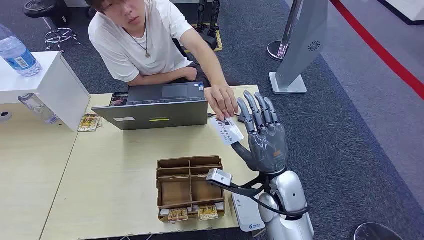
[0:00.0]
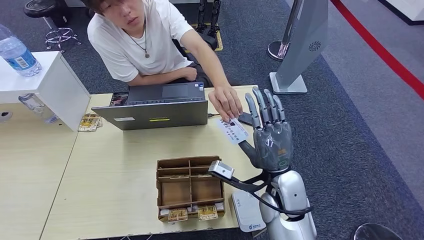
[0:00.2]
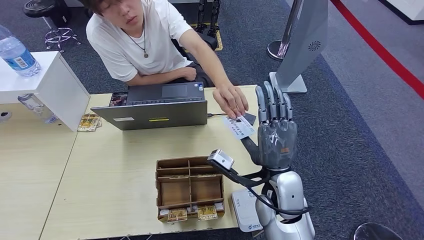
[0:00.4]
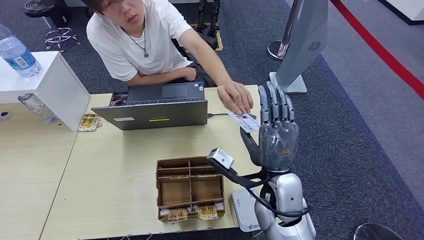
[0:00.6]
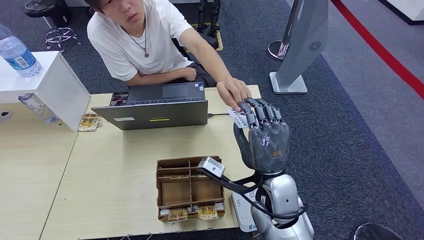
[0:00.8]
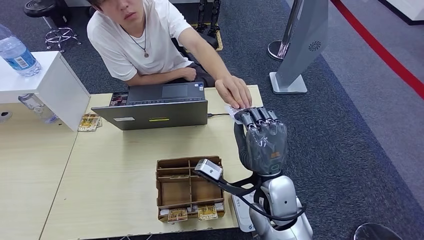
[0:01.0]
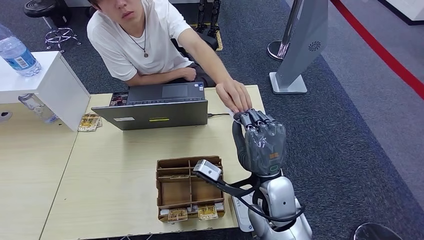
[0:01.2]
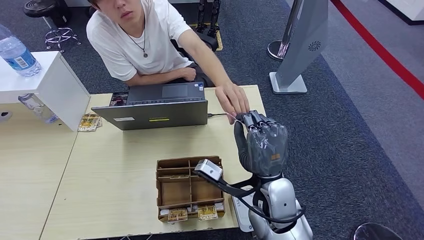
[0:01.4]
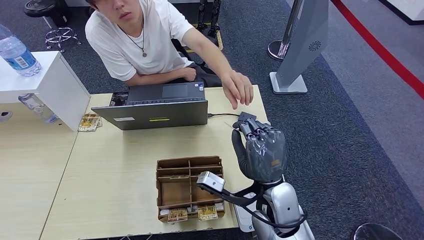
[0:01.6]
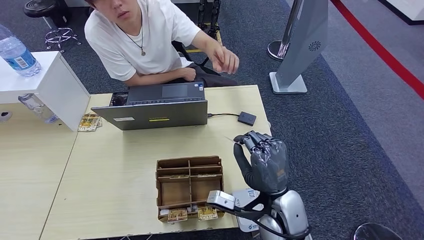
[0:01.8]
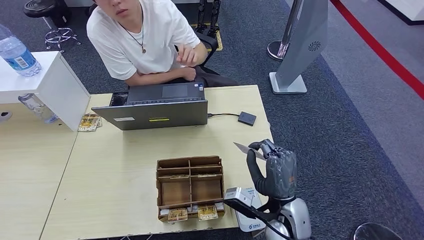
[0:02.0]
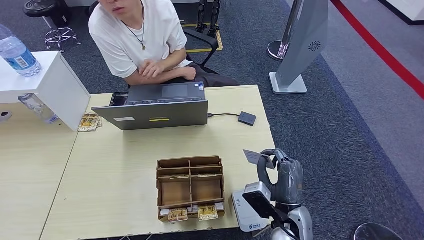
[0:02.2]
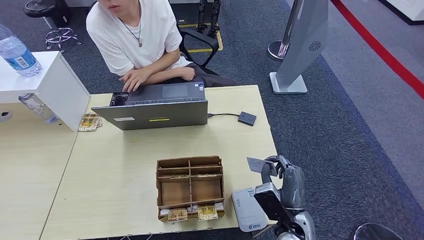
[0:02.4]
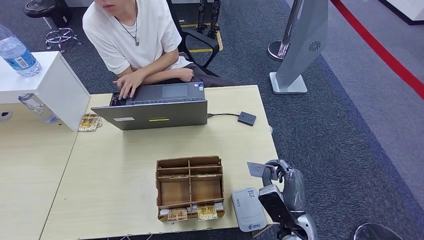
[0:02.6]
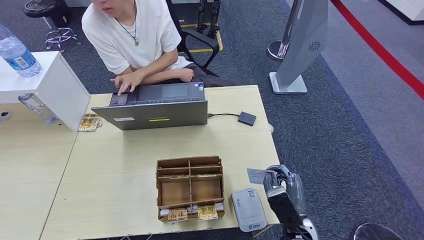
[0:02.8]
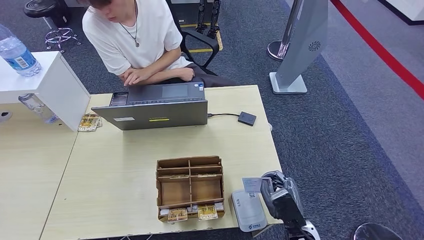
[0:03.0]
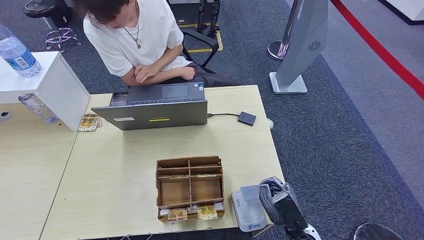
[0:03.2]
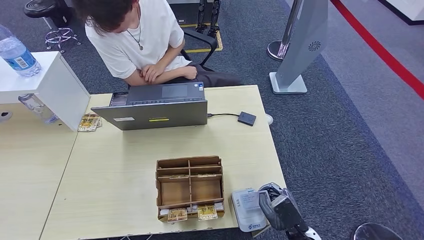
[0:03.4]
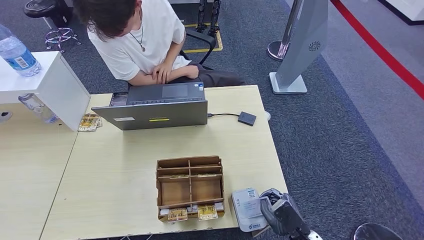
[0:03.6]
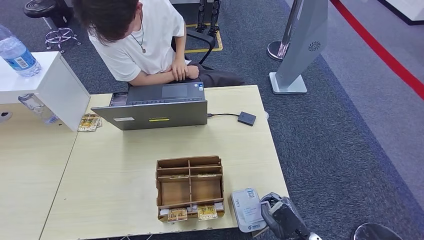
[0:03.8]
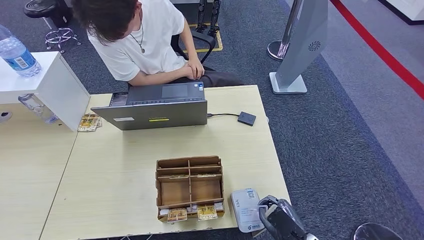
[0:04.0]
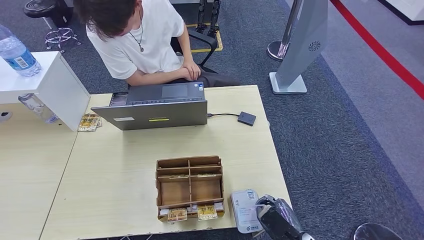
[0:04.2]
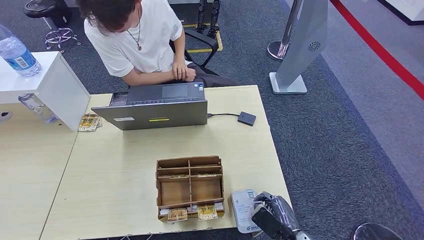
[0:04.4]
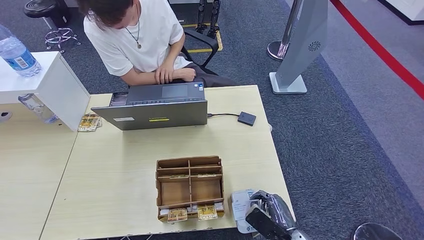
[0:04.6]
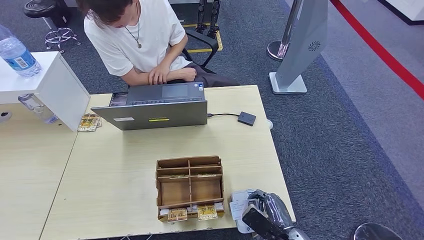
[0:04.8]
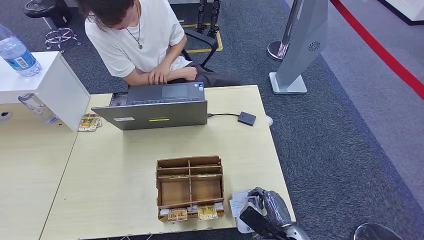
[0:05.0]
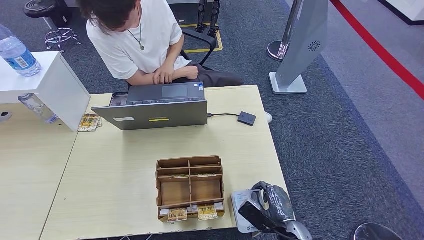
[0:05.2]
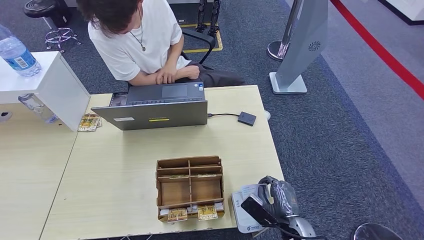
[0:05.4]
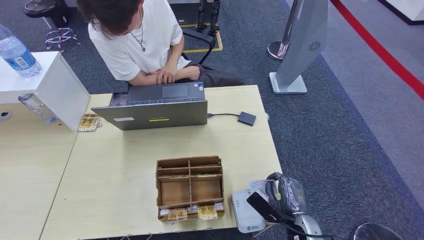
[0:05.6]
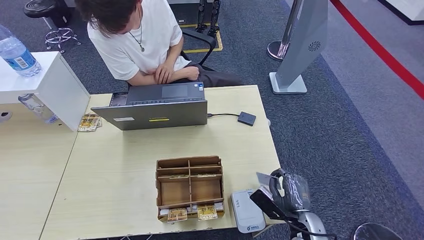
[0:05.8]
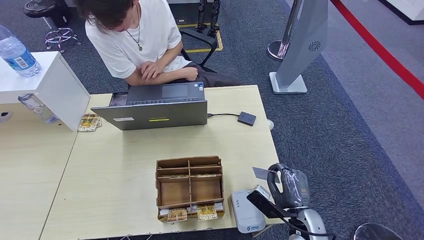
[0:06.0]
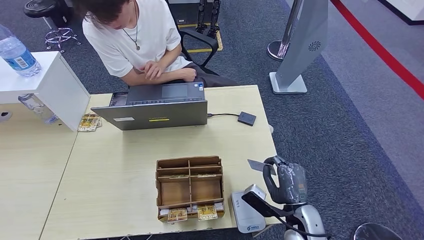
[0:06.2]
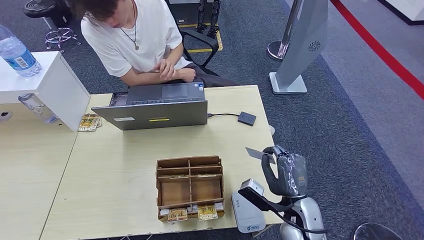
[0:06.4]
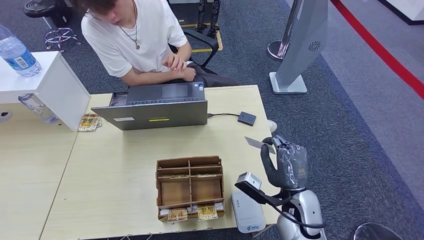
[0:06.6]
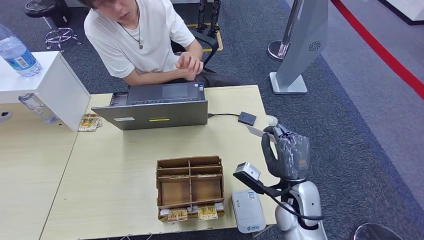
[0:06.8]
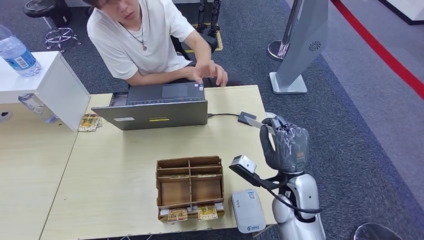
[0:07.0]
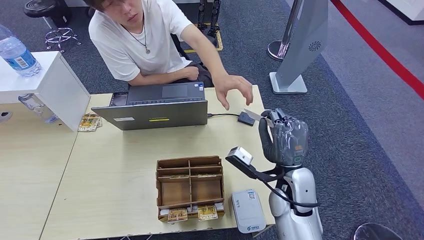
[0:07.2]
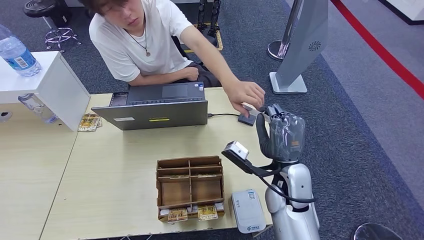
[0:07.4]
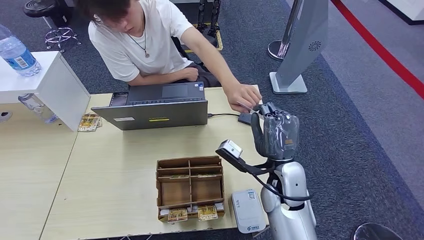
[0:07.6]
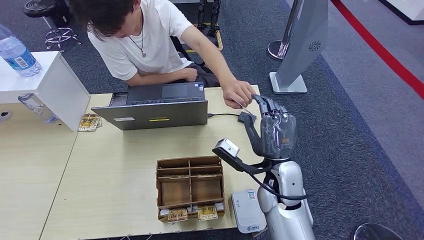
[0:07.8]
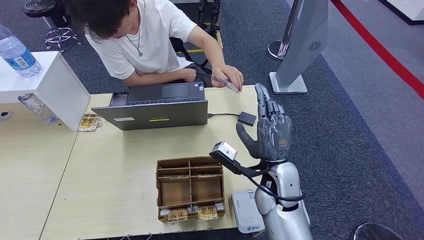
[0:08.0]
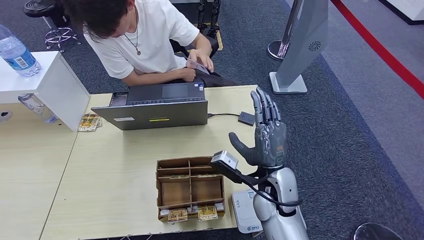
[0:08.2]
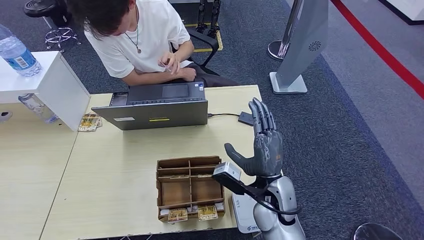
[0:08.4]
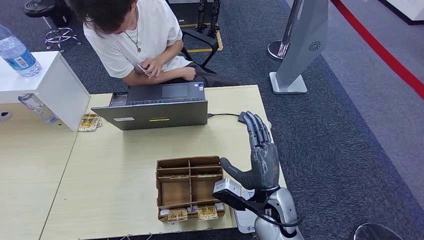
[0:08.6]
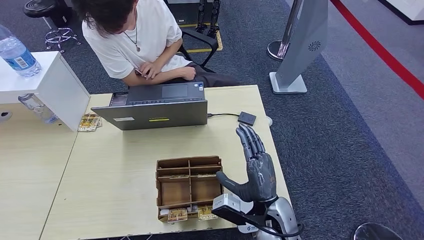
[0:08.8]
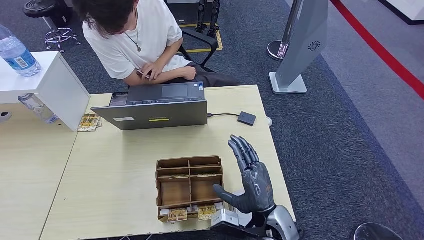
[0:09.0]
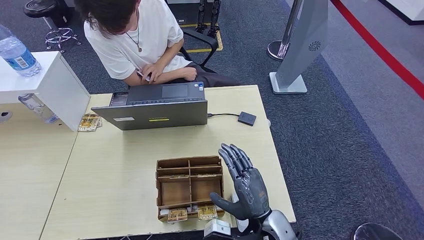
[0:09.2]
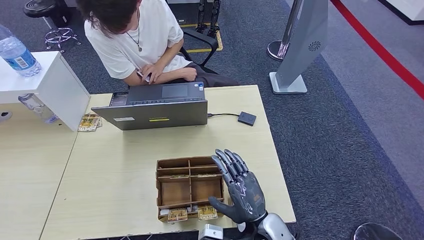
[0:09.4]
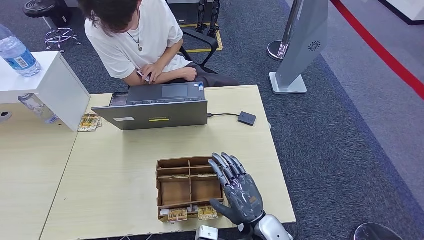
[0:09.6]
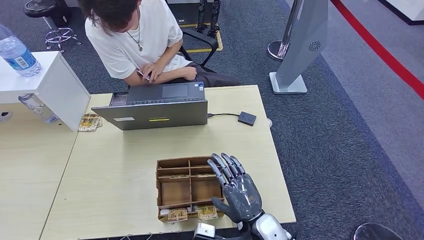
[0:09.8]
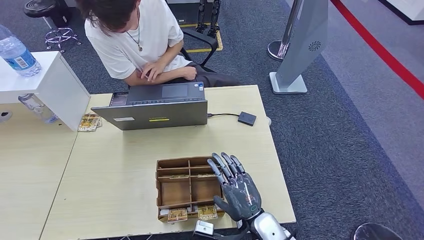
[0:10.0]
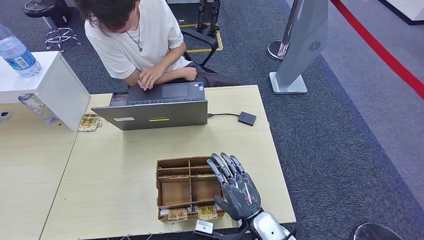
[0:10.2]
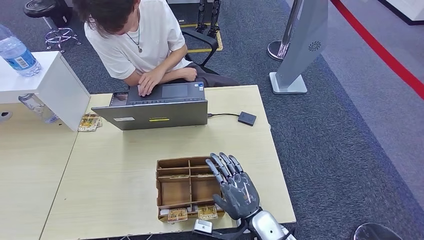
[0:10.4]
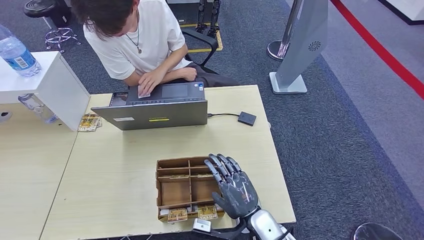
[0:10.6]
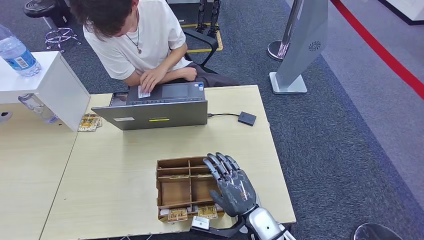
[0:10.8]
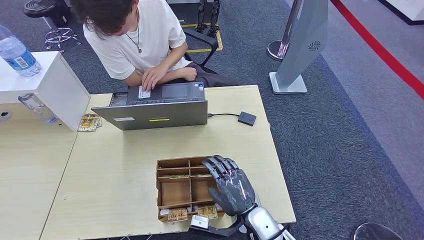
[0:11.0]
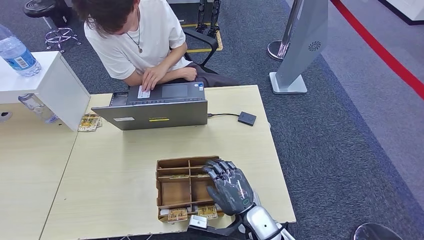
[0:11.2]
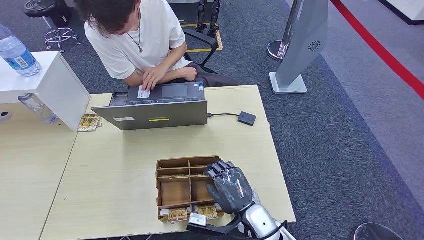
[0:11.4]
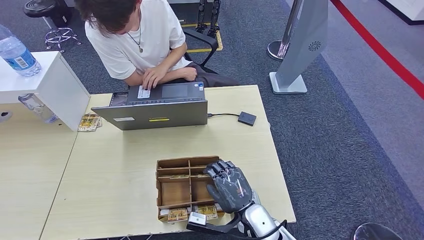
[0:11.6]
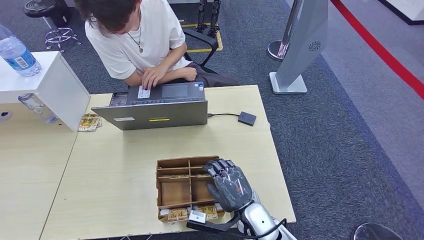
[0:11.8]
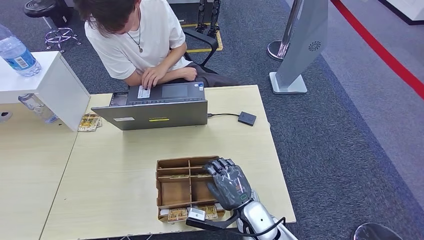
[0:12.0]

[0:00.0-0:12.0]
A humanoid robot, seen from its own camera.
Step, 0:00.0 to 0:02.8: Take the ID card from the person's hand.
Step, 0:03.0 to 0:06.4: Place the ID card on the card reader.
Step, 0:06.6 to 0:10.6: Hand the ID card to the person.
0:01.6 to 0:03.0: The right hand moves downward, to the right and backward, approximately 20 cm.
0:04.4 to 0:06.0: The right hand shifts about 5 cm forward.
0:06.0 to 0:07.6: The right hand is displaced upward, forward and to the left by approximately 20 cm.
0:07.6 to 0:09.0: The right hand heads backward and downward, covering some 10 cm.
0:10.4 to 0:12.0: There are only small adjustments of the hands.

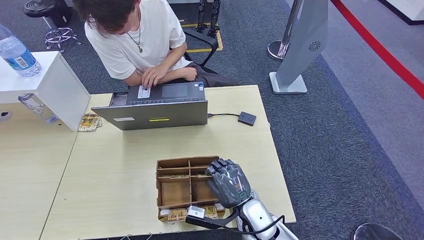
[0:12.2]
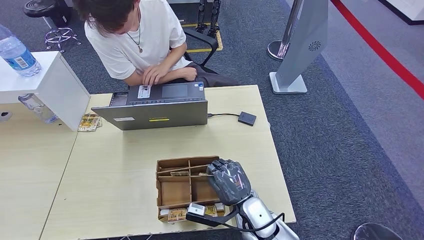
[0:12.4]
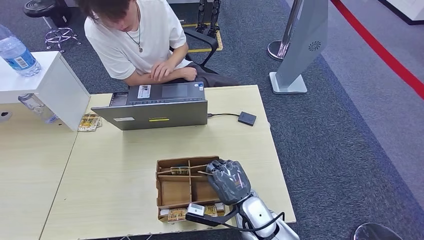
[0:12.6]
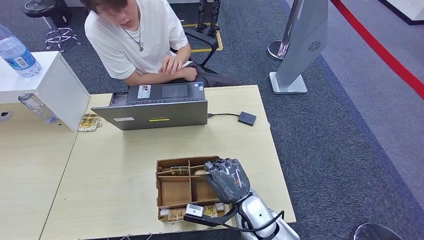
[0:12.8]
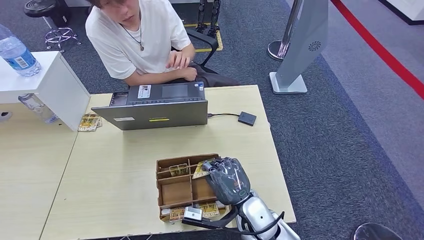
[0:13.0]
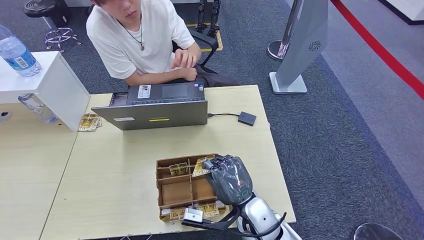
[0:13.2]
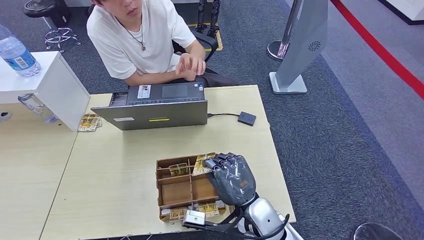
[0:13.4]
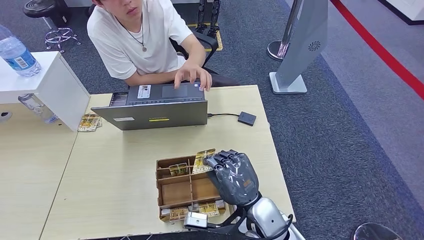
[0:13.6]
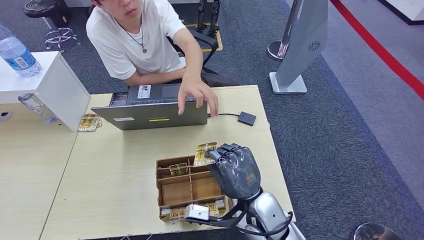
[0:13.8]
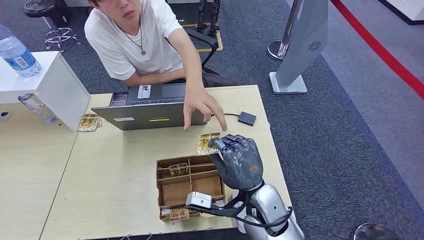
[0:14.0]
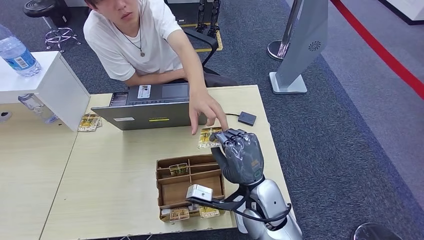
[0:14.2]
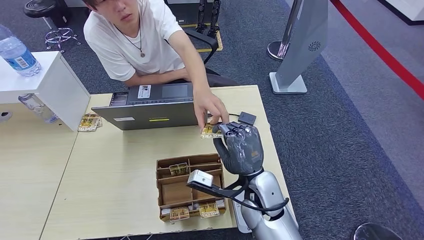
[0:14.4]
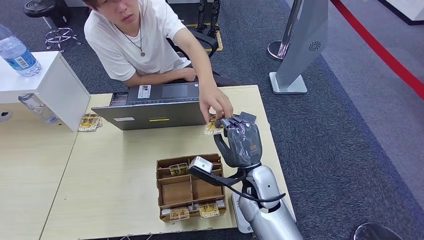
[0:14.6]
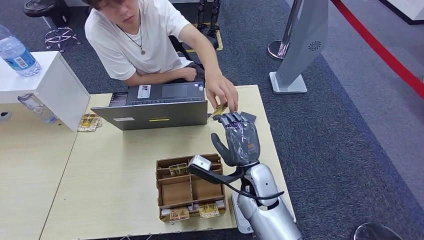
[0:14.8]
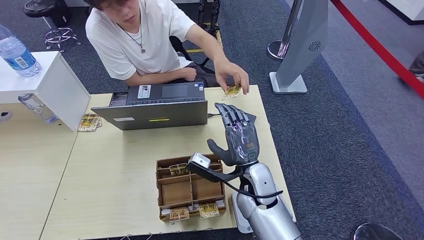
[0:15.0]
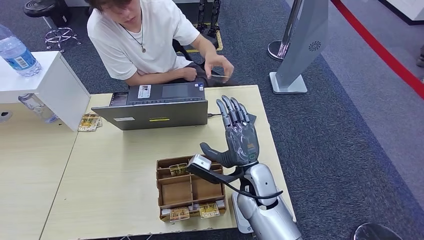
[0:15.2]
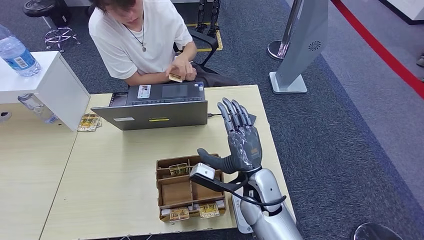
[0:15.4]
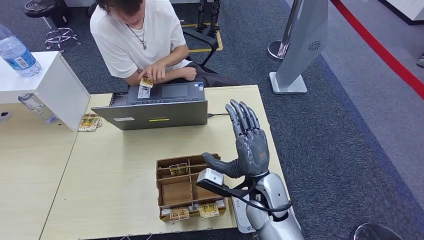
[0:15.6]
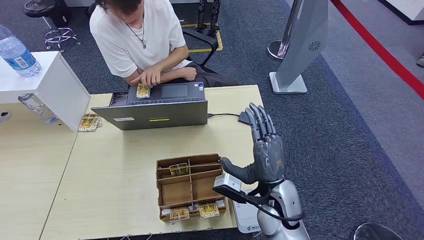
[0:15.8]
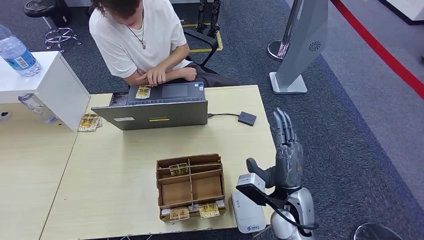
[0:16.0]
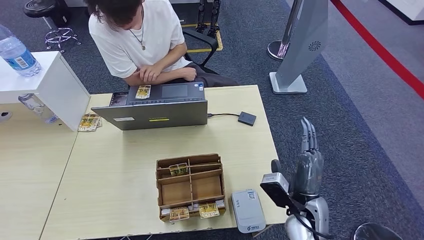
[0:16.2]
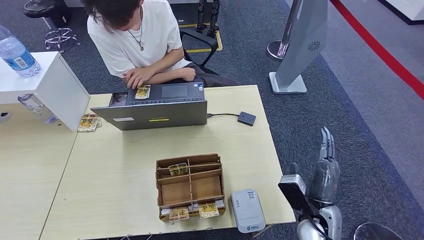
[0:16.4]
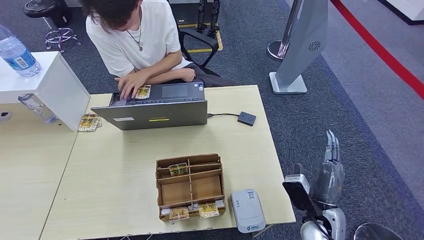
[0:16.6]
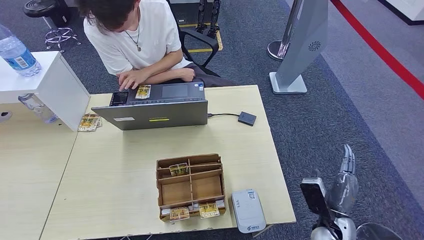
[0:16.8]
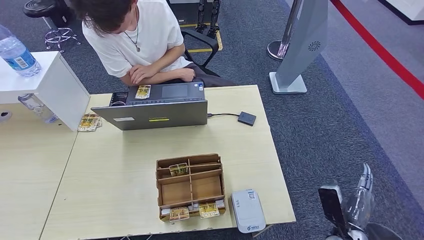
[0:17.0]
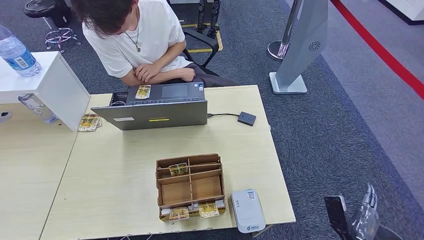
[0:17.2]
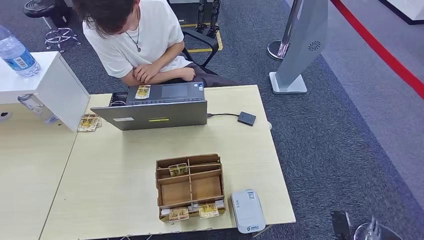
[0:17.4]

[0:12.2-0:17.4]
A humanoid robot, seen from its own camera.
Step, 0:13.6 to 0:17.2: Hand the room key to the person.
0:12.2 to 0:14.0: The right hand moves upward, about 10 cm.
0:14.0 to 0:15.6: The hands move only a little.
0:15.6 to 0:17.4: The right hand travels to the right, downward and backward by about 35 cm.
